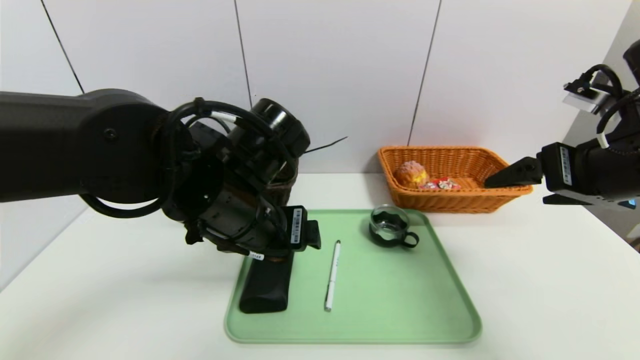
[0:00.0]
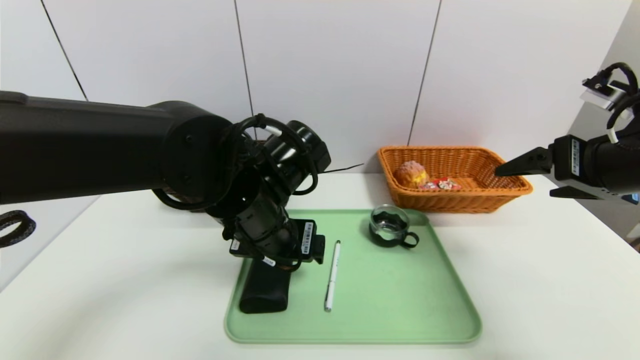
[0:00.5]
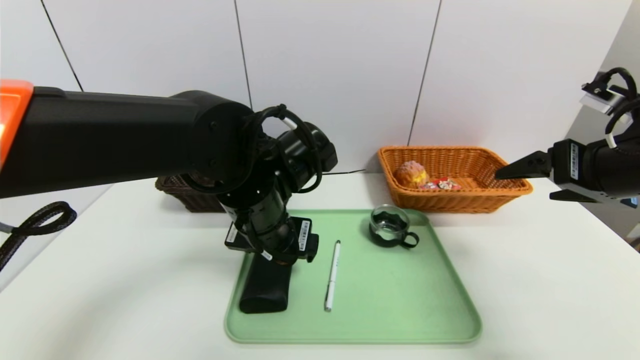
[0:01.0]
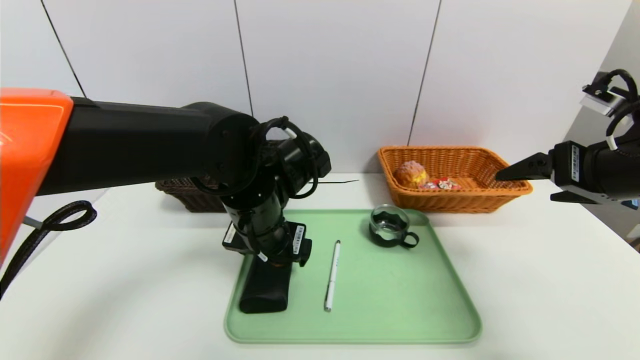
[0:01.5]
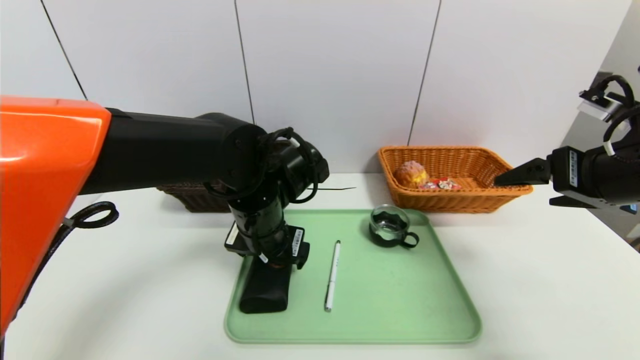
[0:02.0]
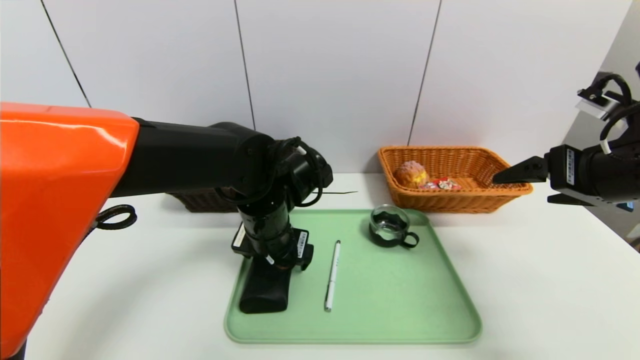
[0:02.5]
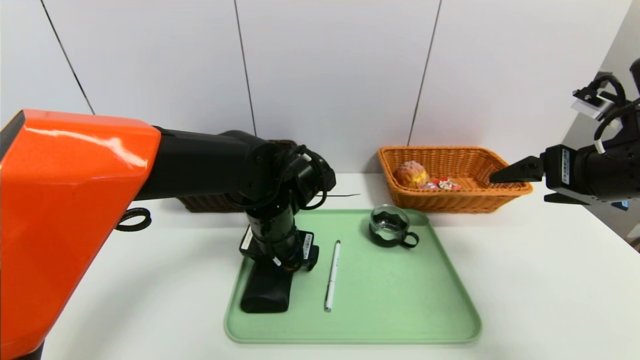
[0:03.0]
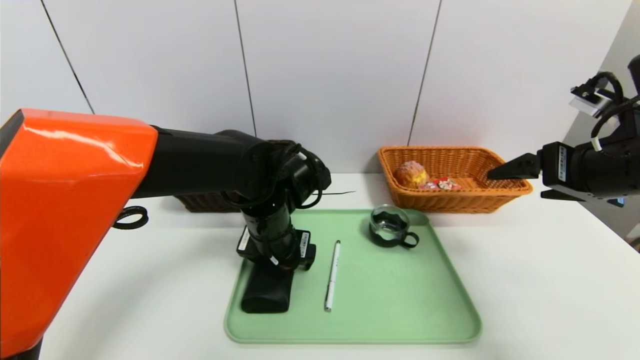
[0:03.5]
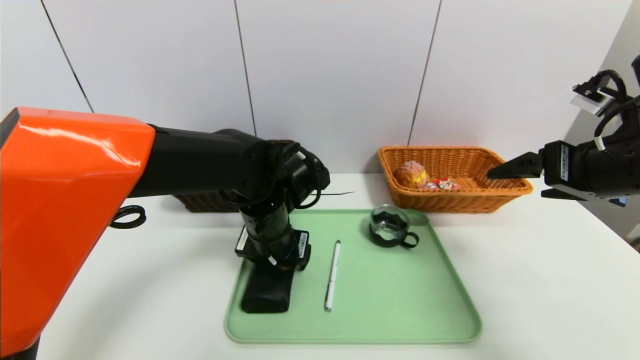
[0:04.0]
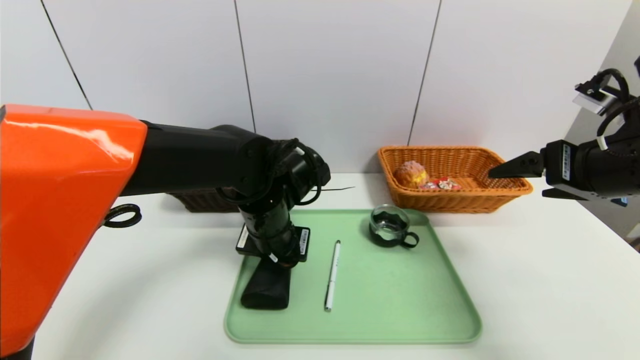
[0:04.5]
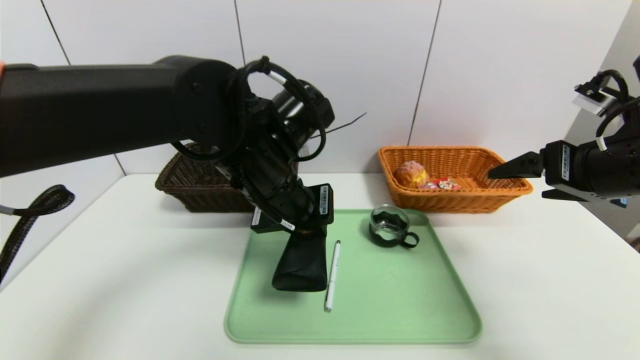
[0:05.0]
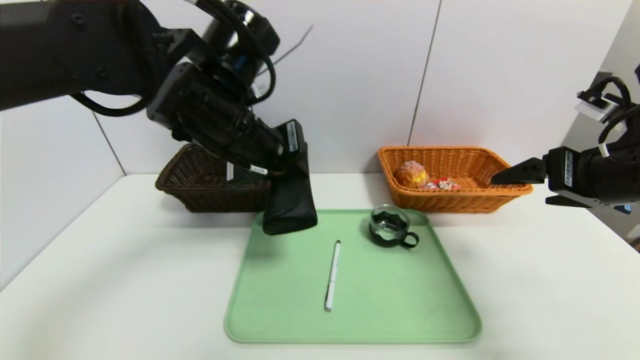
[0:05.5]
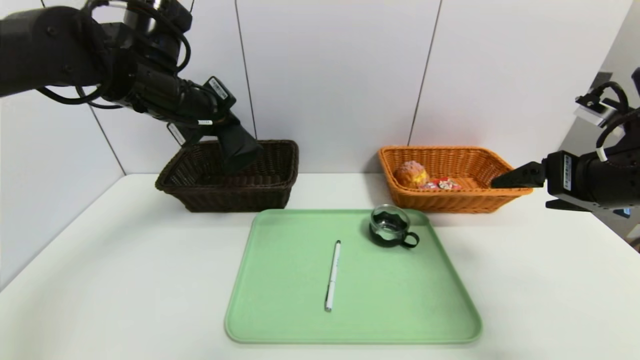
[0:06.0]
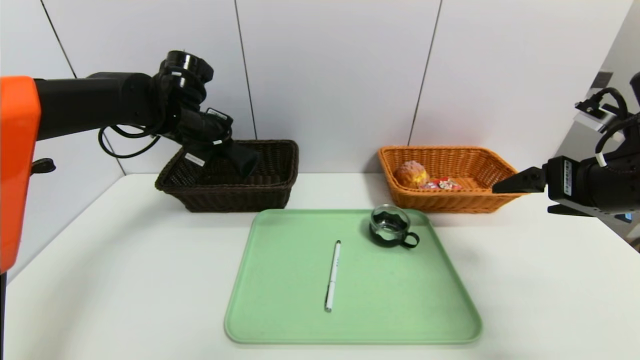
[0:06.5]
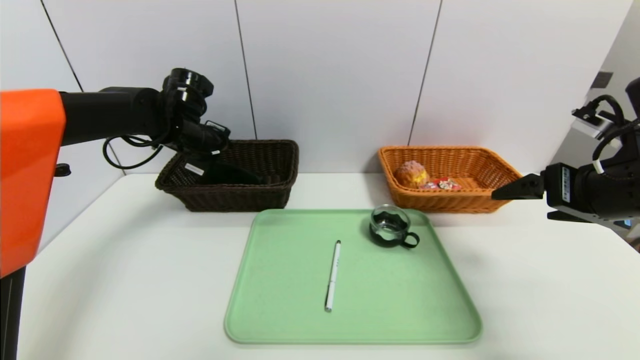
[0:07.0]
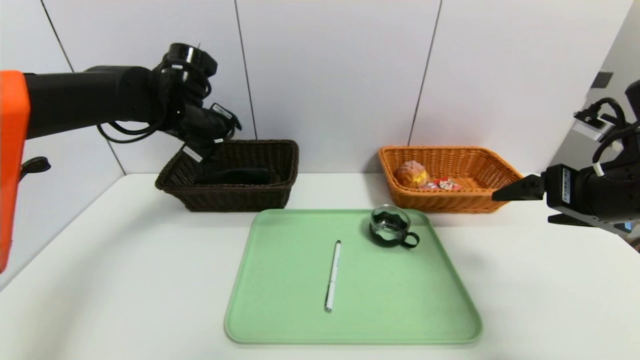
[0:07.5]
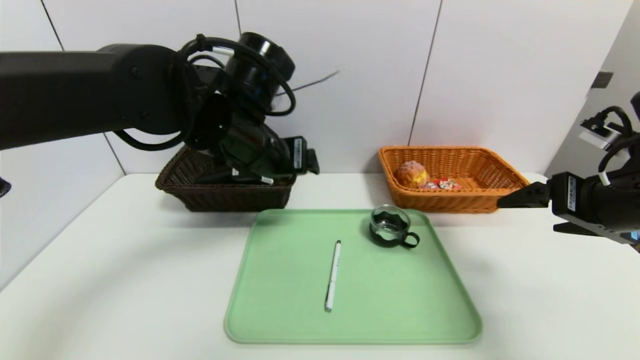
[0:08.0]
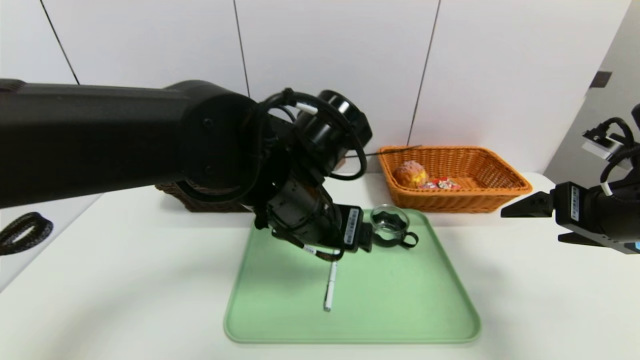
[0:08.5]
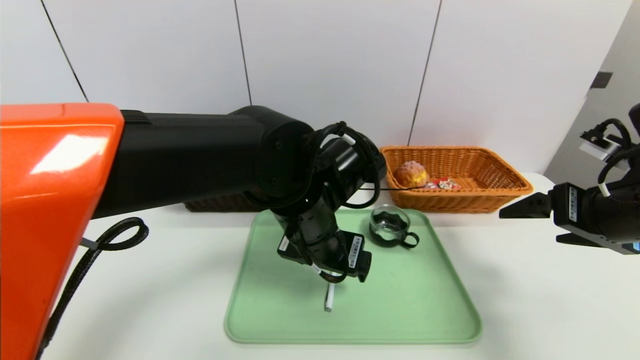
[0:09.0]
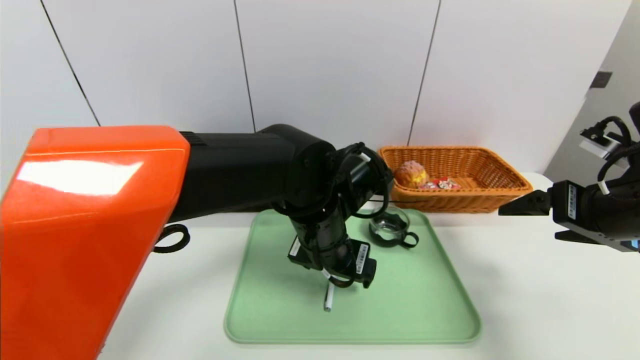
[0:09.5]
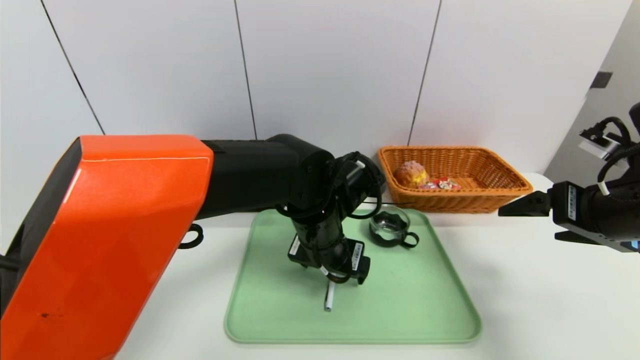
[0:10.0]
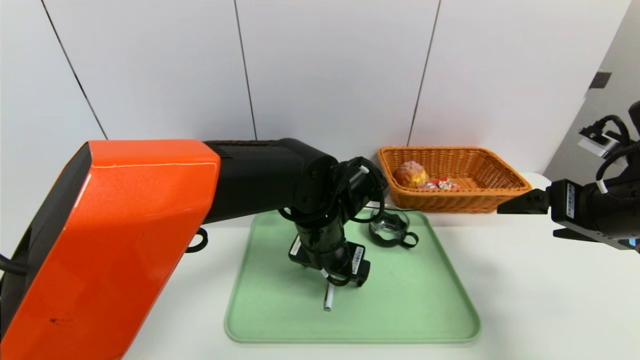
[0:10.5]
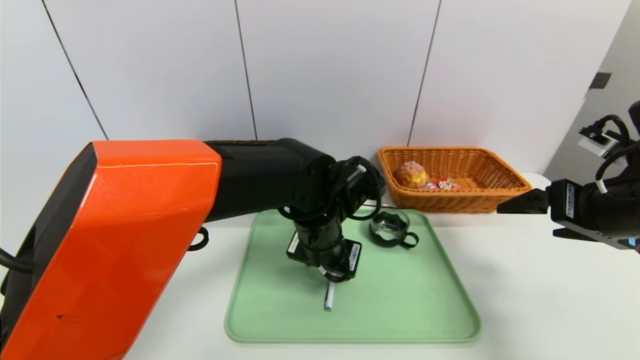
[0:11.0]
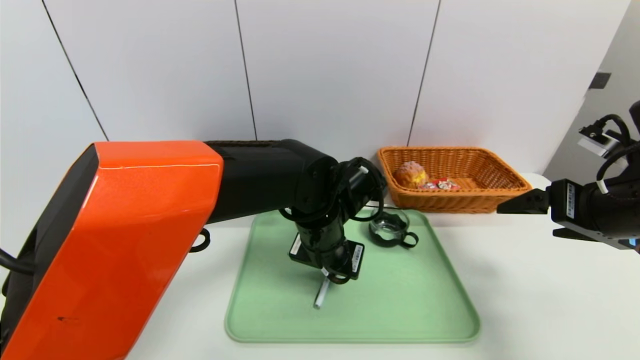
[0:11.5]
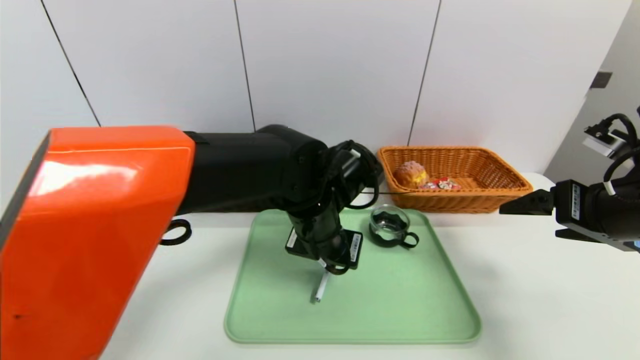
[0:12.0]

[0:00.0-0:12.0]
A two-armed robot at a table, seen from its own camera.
Task of the whole recording: place the food in the right basket with the right gripper, and place the non food items in the left basket with the left gripper.
Step, 0:00.0 to 0:07.0: Grasp the glasses case and put it in the left basket.
0:00.0 to 0:02.0: The left gripper is displaced forward by some 5 cm.
0:02.0 to 0:04.0: The grippers move only a little.
0:04.0 to 0:06.0: The left gripper shifts some 20 cm upward and to the left, and closes.
0:06.0 to 0:08.0: The left gripper moves to the right and backward, about 15 cm, and opens.
0:08.0 to 0:10.0: The left gripper is displaced downward and to the right by some 15 cm.
0:10.0 to 0:12.0: The left gripper closes up.

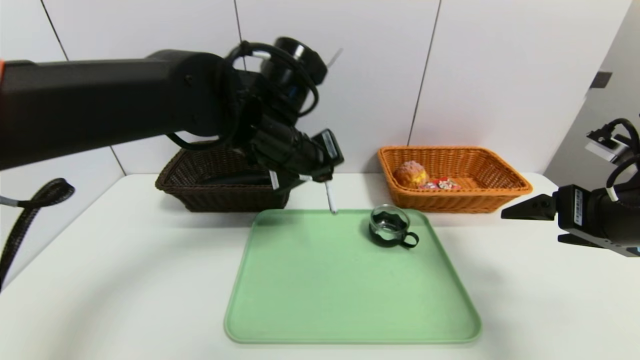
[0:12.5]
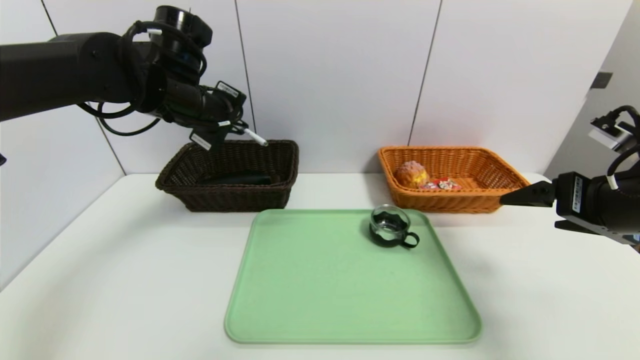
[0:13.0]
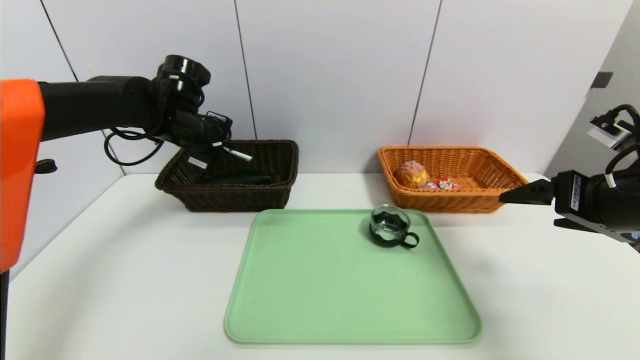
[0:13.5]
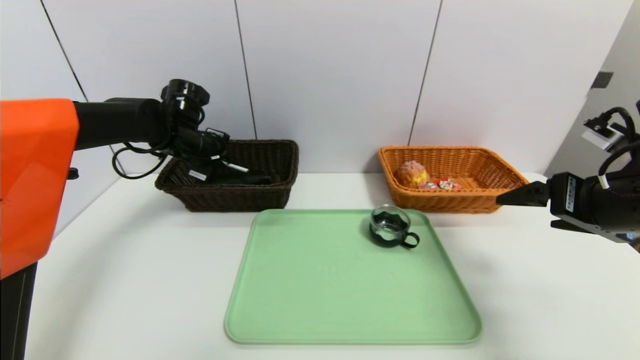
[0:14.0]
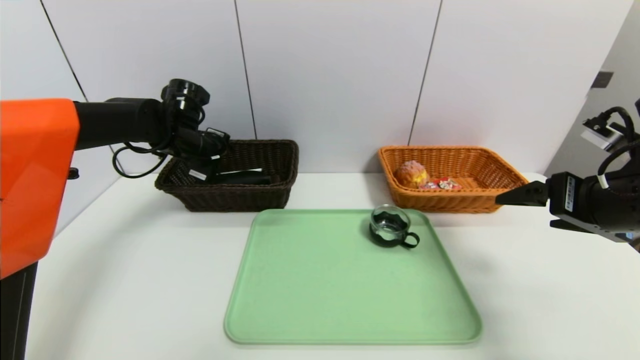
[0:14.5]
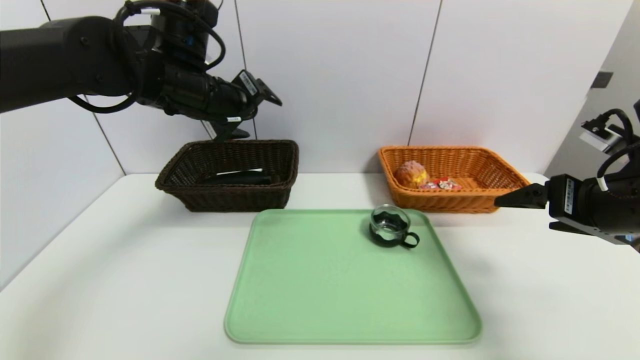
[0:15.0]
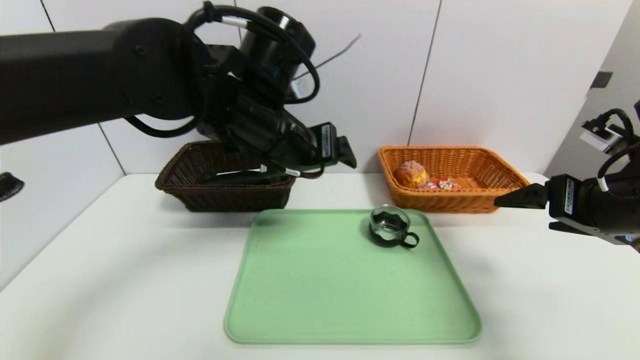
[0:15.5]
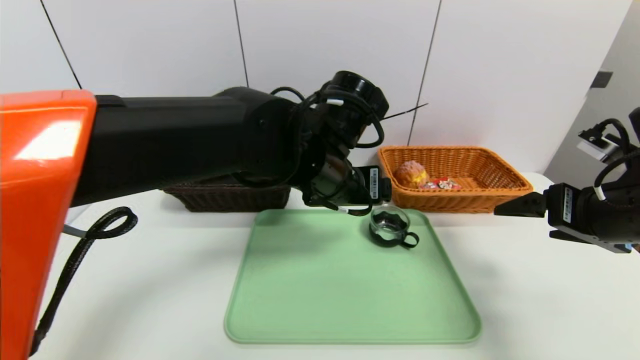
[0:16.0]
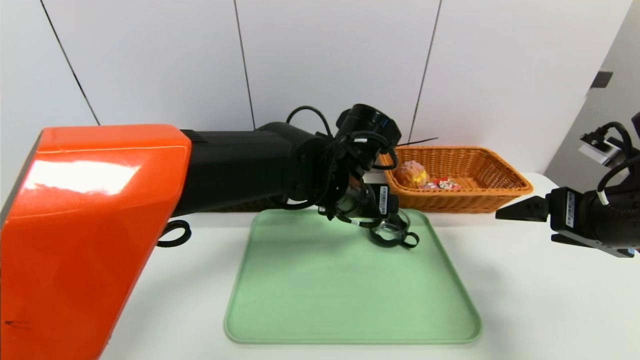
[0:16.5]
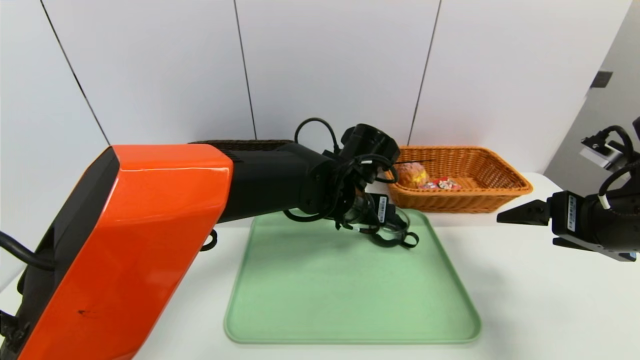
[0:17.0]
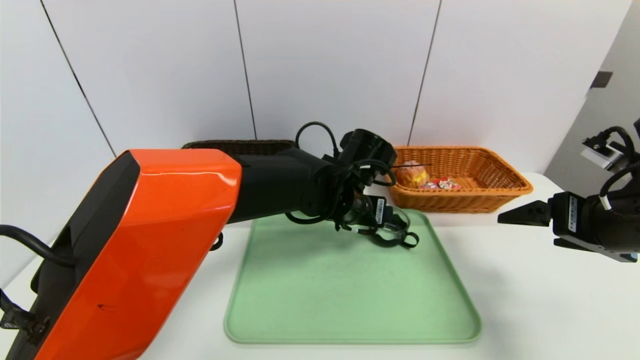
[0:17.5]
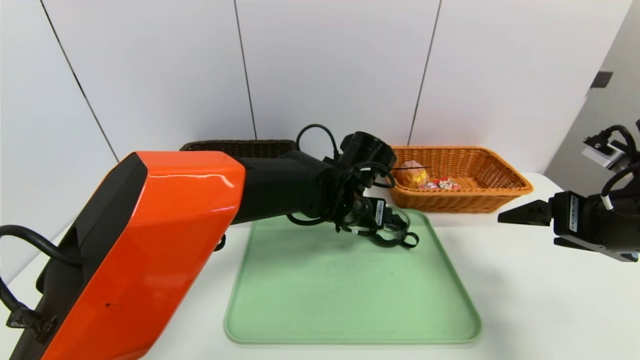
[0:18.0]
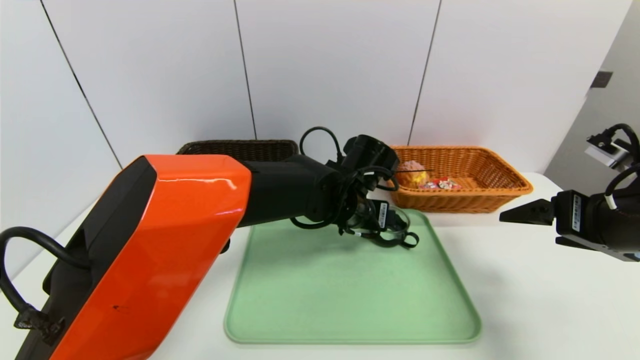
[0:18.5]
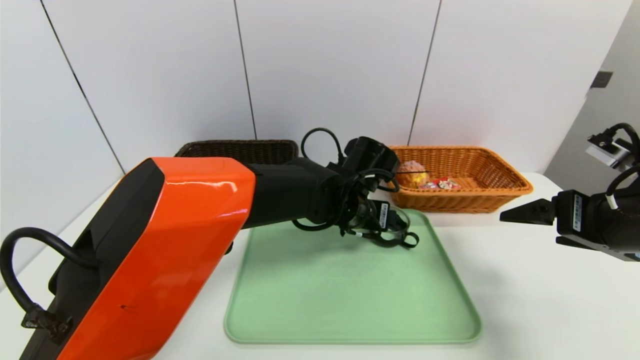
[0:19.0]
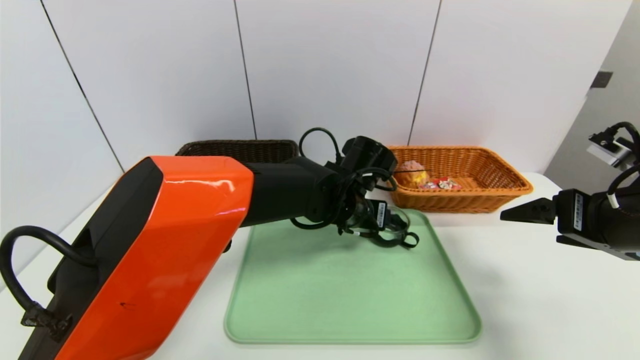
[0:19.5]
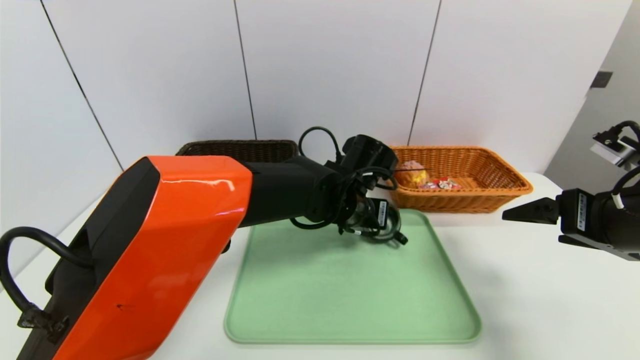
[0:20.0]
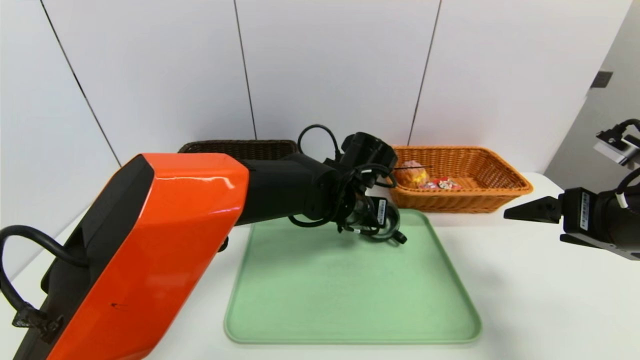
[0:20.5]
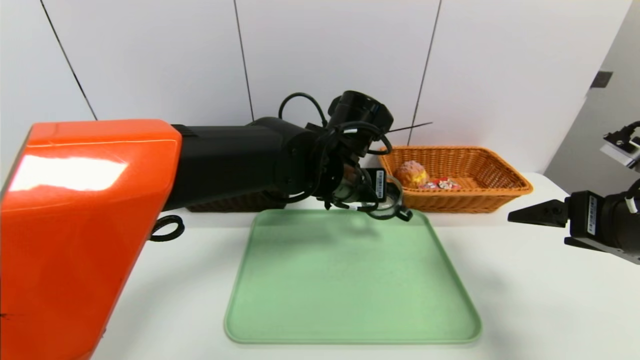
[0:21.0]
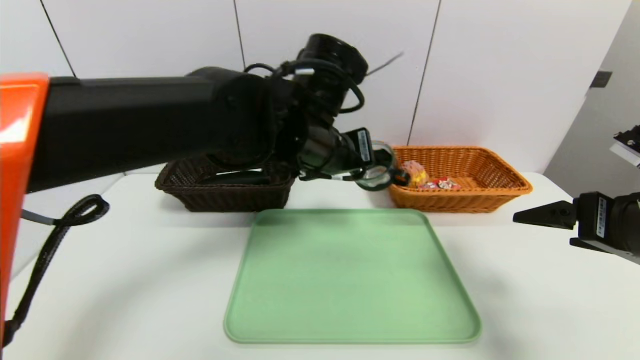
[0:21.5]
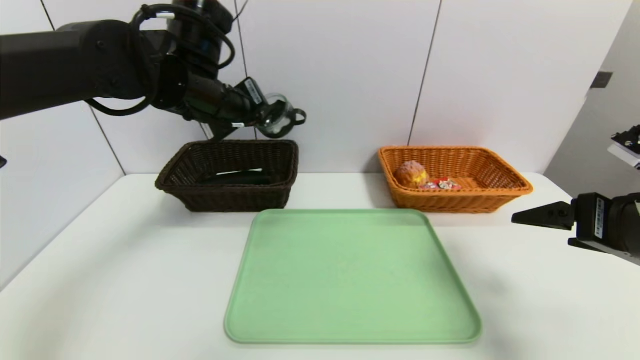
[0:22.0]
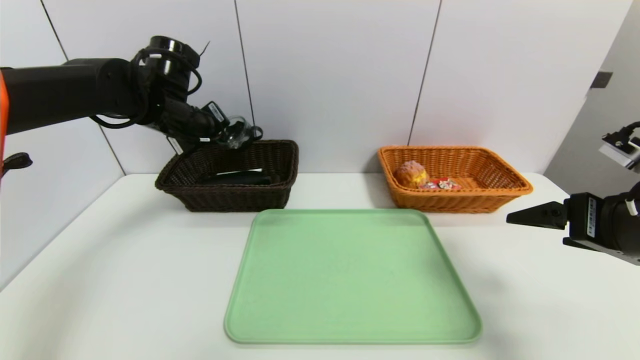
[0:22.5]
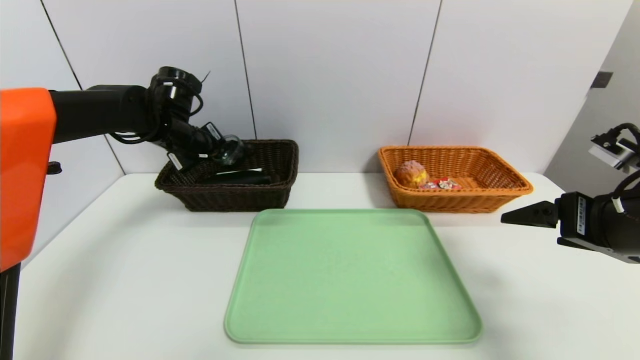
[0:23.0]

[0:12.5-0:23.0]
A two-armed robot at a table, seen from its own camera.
Task of the whole recording: place the food in the right basket with the right gripper, and place the non food items in the left basket with the left gripper.
Step, 0:12.5 to 0:14.5: Grasp the ballpoint pen and put it in the left basket.
0:12.5 to 0:14.5: The left gripper moves to the left and forward, some 20 cm, and opens its fingers.
0:14.5 to 0:16.5: The left gripper moves to the right and backward, roughly 30 cm, and opens.
0:16.5 to 0:19.0: The left gripper shifts about 5 cm downward.
0:19.0 to 0:21.0: The left gripper travels upward by about 5 cm, and closes up.
0:21.0 to 0:23.0: The left gripper is displaced to the left and forward by about 30 cm.
